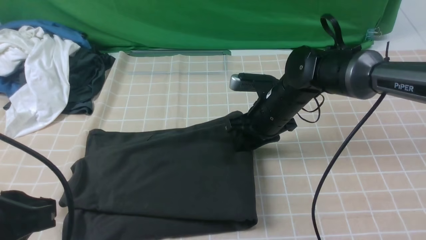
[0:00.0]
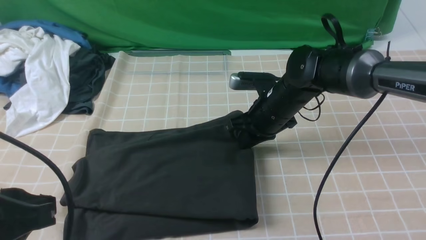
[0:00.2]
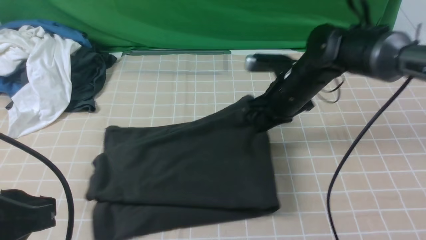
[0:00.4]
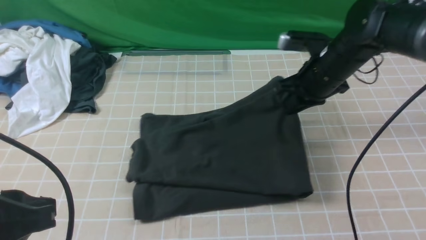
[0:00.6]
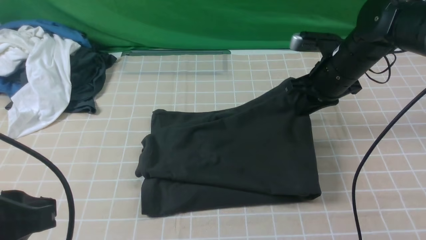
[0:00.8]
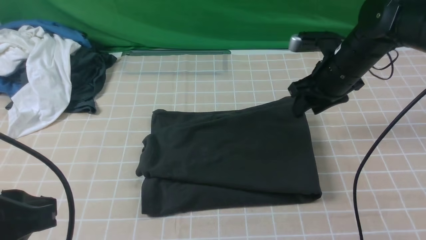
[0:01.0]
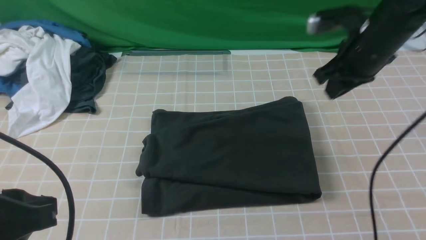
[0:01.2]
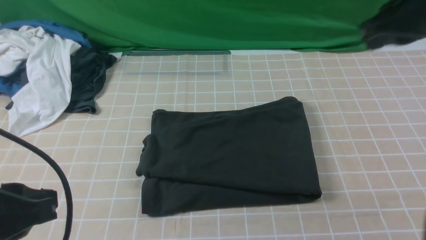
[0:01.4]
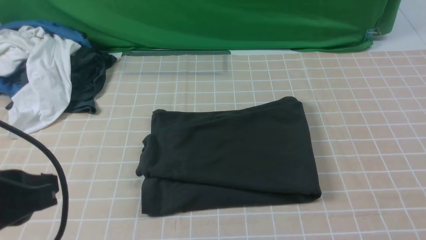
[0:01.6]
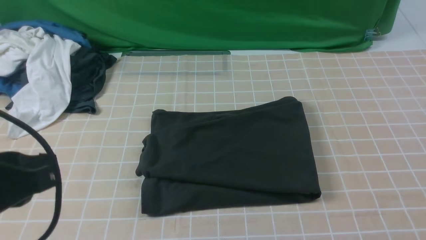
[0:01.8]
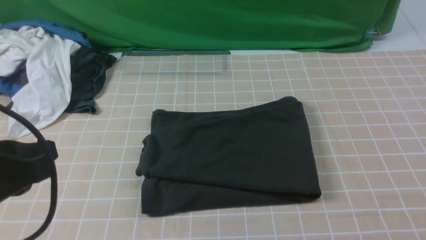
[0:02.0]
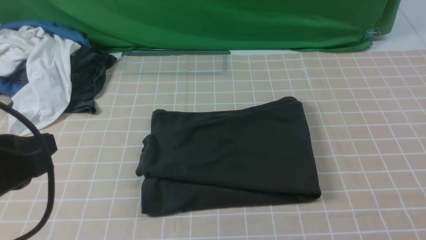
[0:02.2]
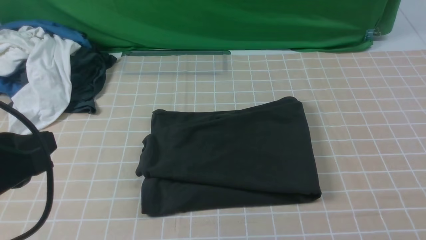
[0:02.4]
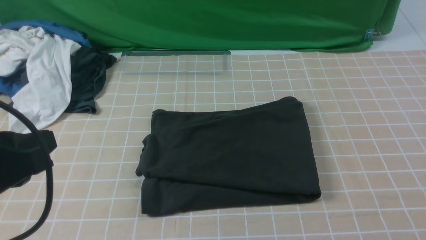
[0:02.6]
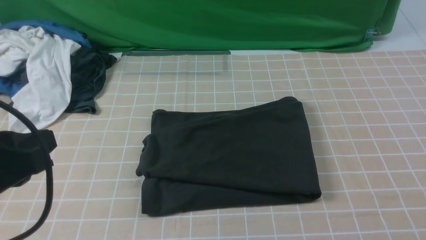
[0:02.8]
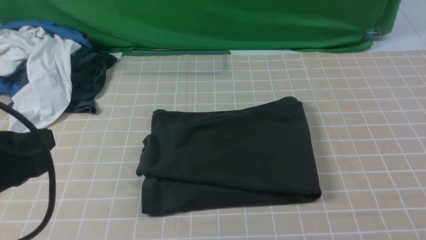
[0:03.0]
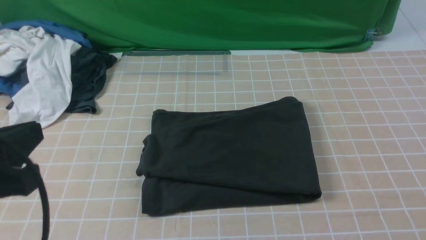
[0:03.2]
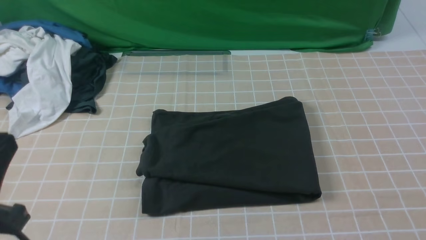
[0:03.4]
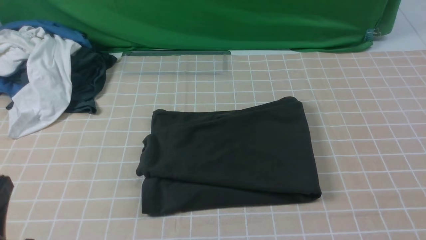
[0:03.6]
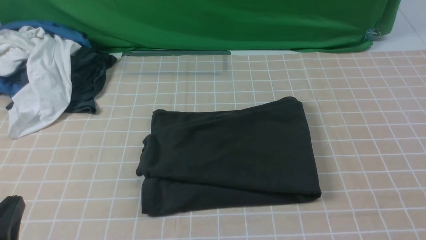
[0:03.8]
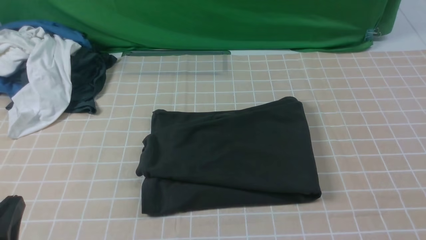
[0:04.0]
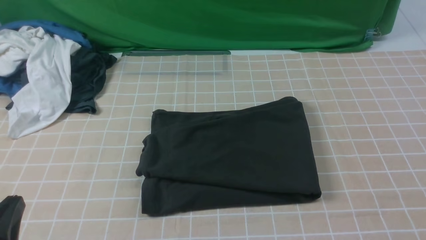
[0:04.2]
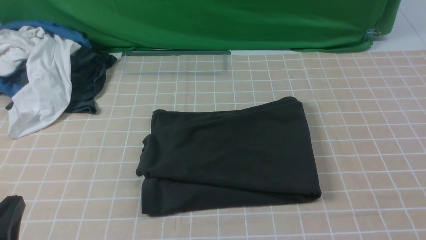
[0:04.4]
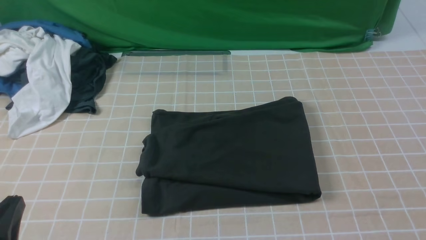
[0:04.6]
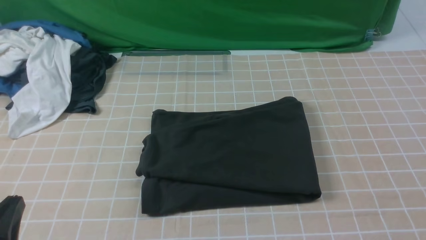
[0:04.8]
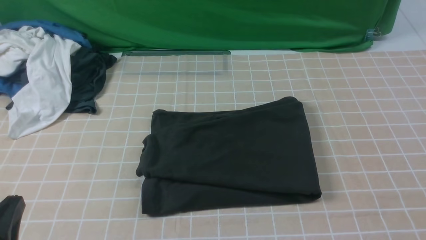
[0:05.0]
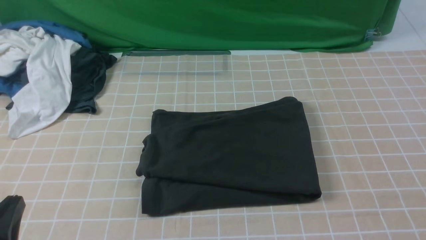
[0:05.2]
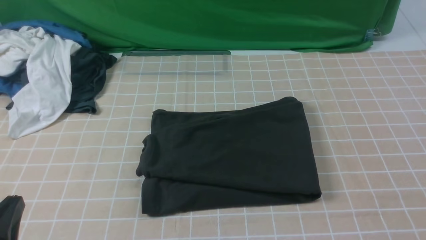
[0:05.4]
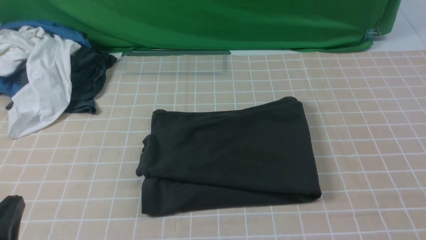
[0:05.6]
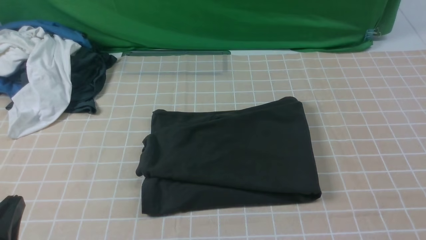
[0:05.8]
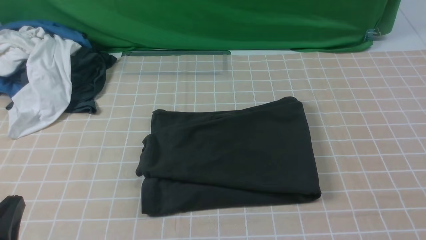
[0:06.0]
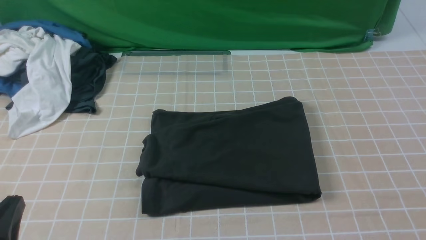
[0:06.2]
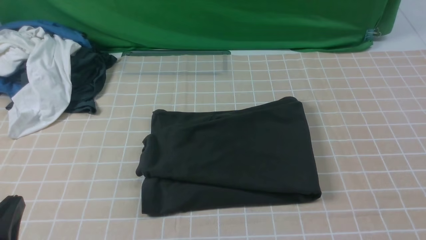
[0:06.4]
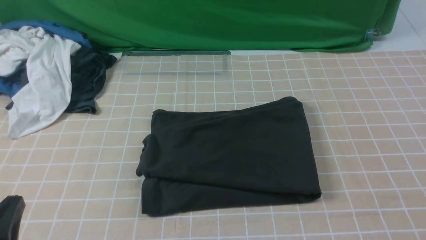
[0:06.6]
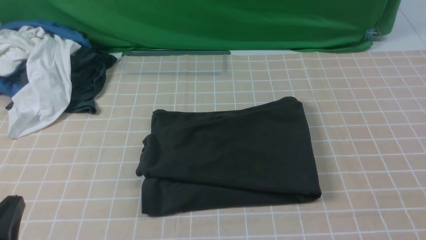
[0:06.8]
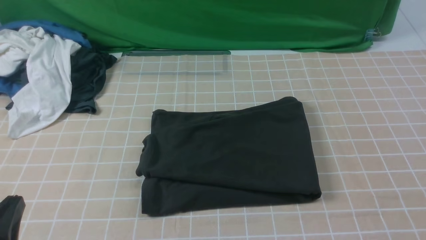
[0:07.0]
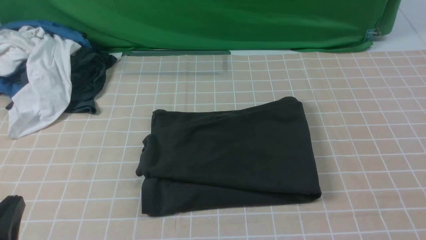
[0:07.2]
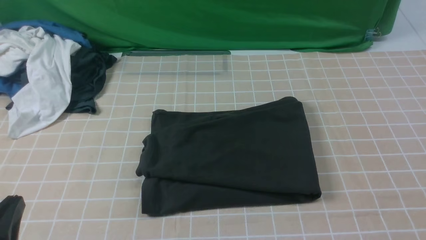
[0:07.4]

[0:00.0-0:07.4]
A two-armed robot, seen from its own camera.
0:00.0 to 0:01.4: The right gripper travels upward, to the right and backward by roughly 30 cm, and closes its fingers.
0:01.4 to 0:03.0: The right gripper moves backward, approximately 25 cm, and opens.
0:03.0 to 0:04.4: The left gripper travels downward and backward by roughly 15 cm.
0:06.0 to 0:07.4: The two grippers keep their place.

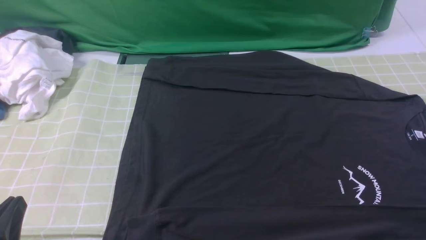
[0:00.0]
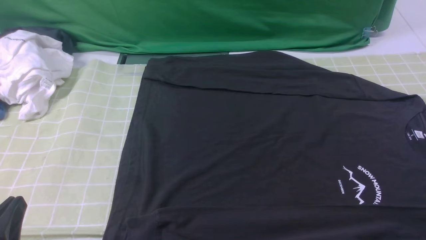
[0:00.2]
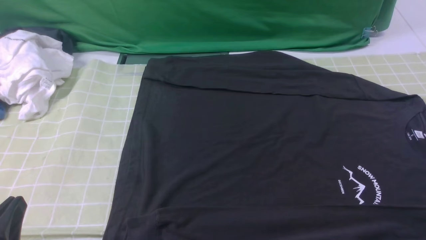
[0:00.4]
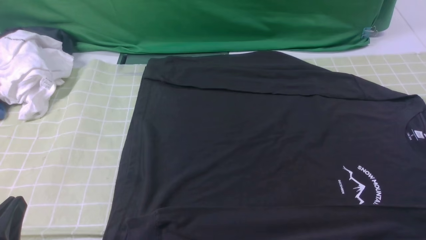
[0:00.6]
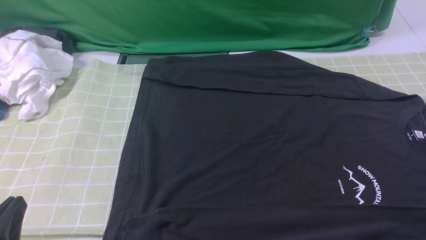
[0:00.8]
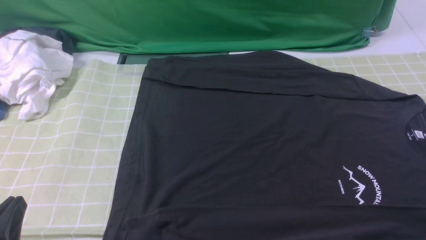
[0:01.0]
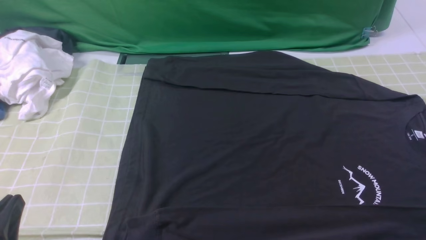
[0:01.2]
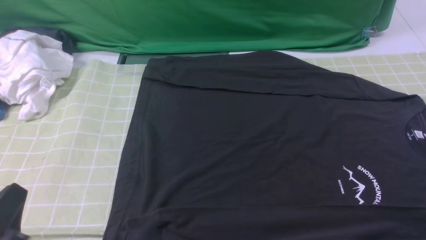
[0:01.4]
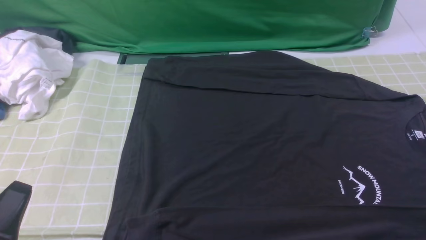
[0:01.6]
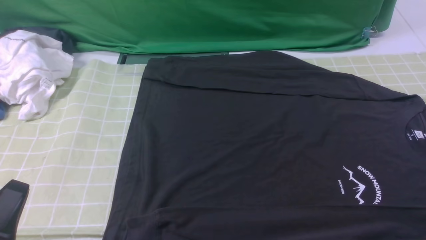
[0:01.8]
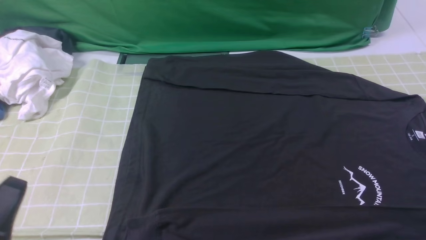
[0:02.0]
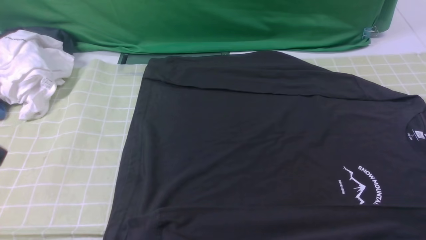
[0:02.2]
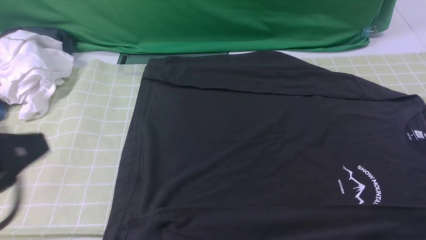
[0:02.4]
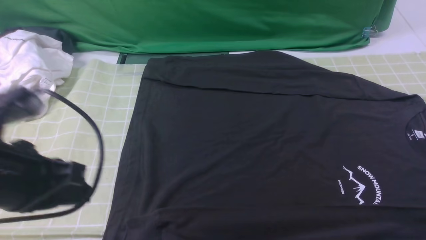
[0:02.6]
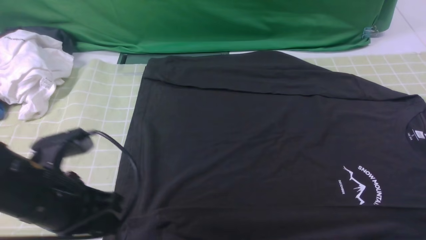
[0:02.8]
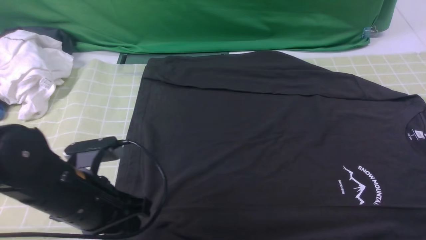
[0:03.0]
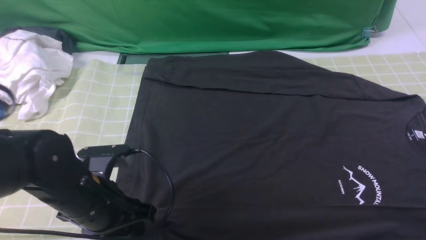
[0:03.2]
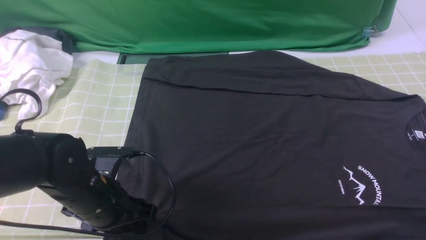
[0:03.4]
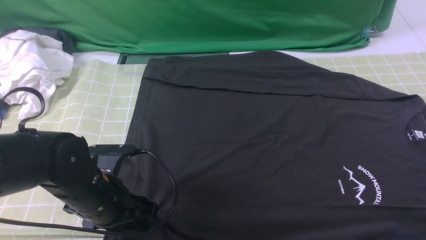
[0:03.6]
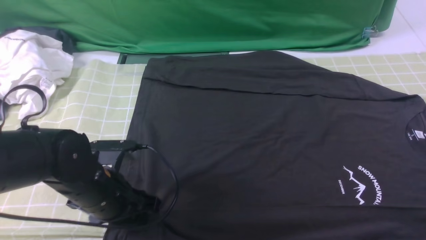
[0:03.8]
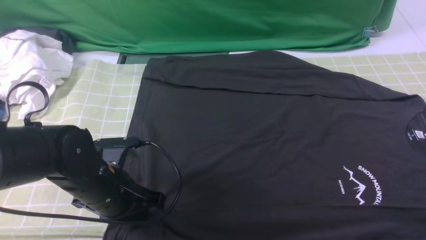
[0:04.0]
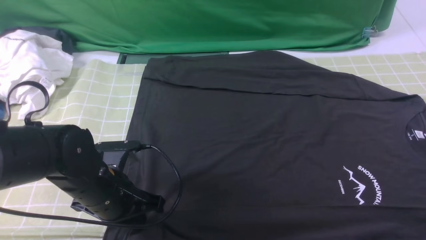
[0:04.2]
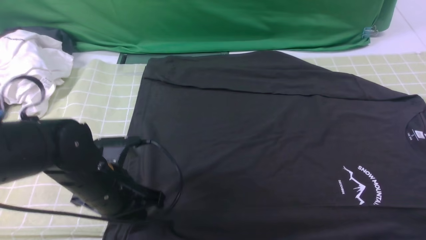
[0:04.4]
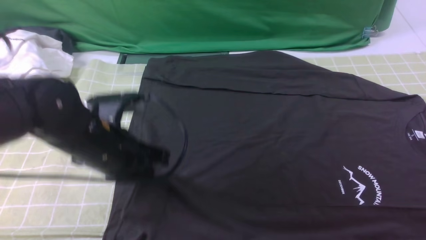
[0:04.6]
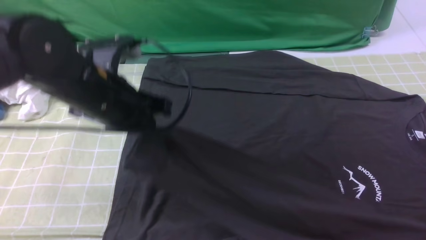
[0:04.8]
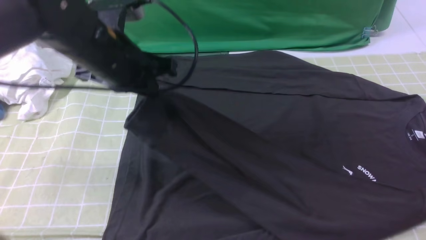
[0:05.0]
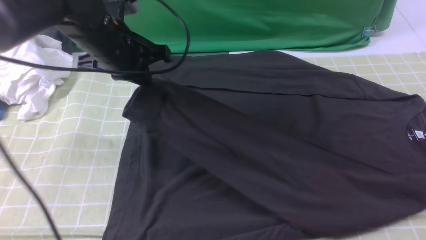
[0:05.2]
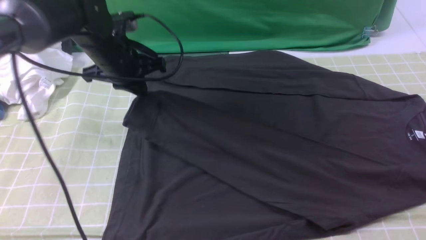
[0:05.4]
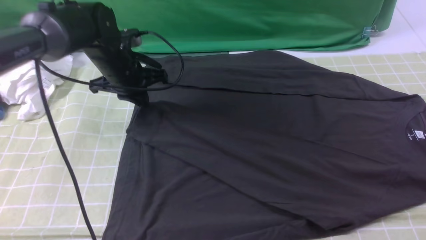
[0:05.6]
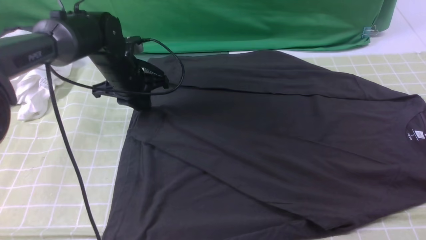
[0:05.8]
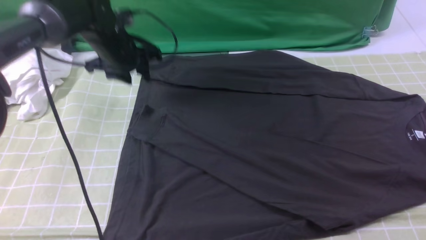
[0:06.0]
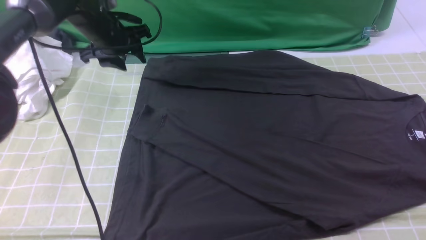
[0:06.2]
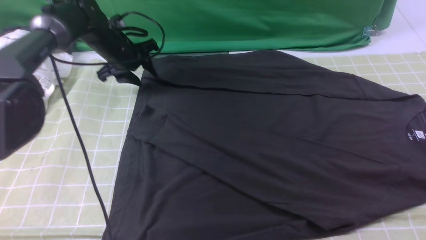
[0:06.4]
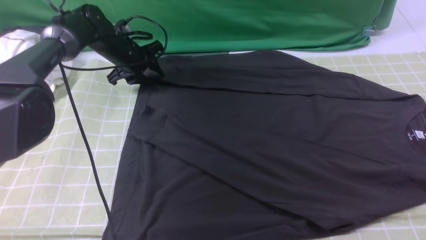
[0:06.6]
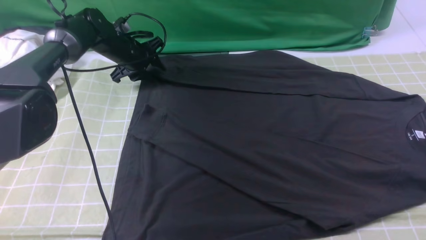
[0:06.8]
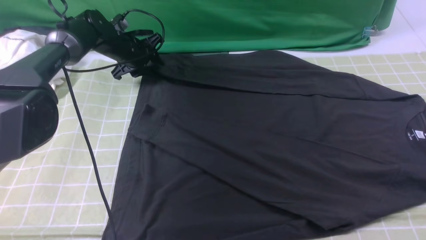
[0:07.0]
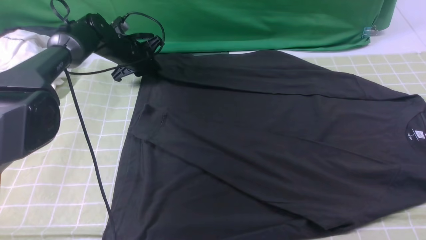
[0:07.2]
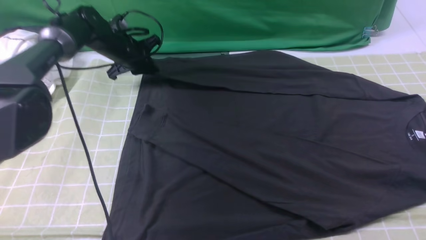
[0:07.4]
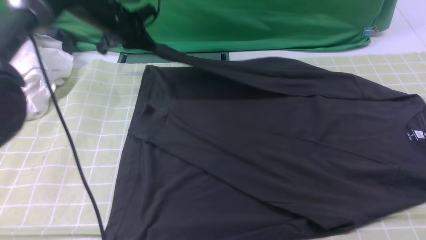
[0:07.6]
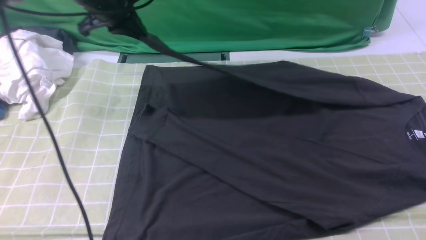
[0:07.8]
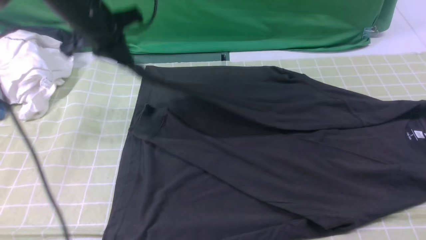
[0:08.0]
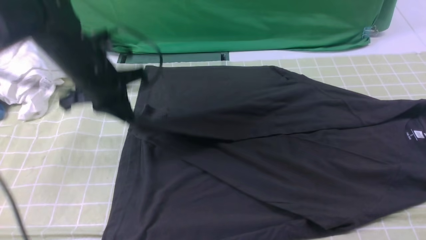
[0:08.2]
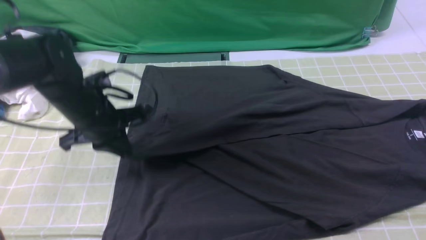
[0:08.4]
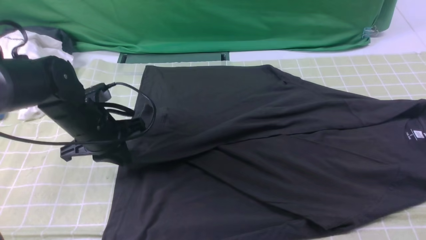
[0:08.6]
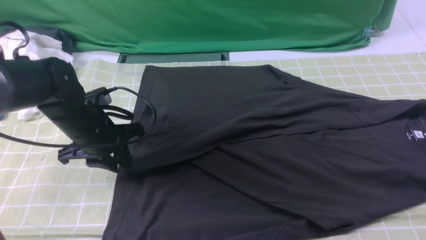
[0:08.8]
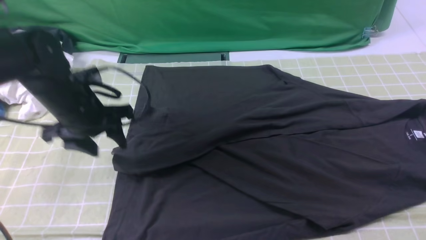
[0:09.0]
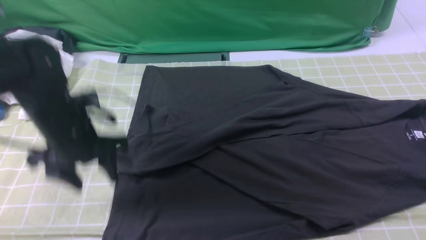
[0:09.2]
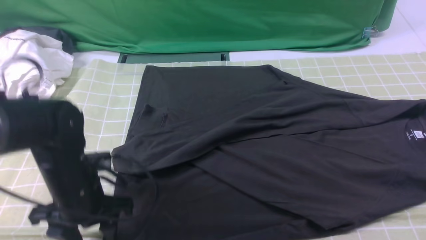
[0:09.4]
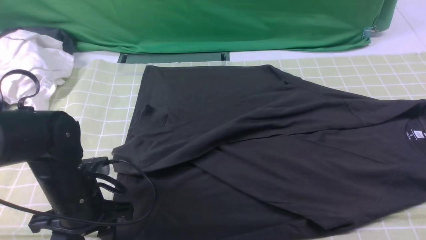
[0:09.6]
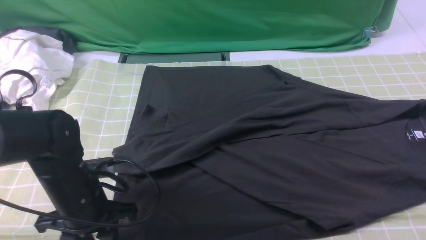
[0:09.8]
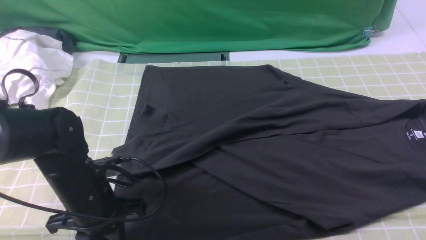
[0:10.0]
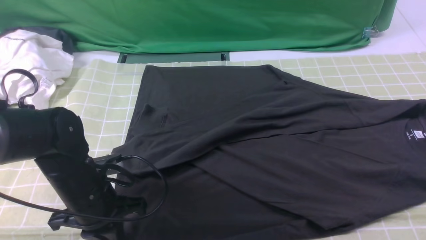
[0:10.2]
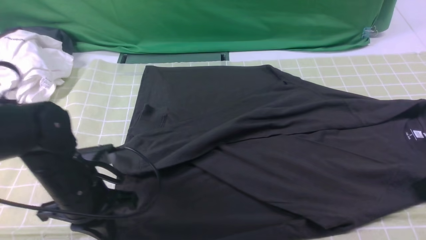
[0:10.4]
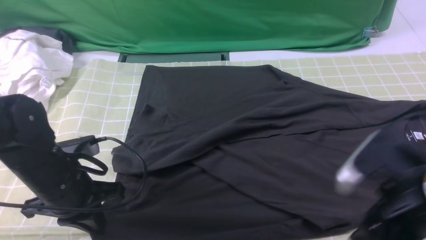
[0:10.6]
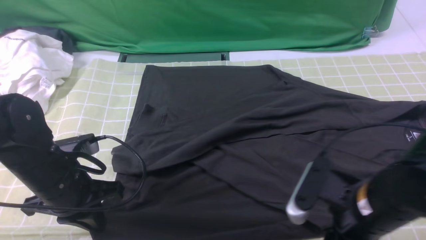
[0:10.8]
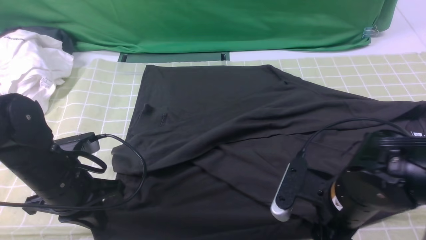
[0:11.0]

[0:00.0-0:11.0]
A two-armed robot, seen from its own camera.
Step, 0:00.0 to 0:04.2: use the left arm to clamp the cuff closest to it.
Step, 0:04.4 to 0:05.8: use the left arm to drag and place the cuff at the centered position on the left edge of the fabric.
Step, 0:06.0 to 0:07.0: use the left arm to clamp the cuff farthest from it.
Step, 0:07.4 to 0:08.8: use the left arm to drag and drop the cuff onto the cuff closest to the left arm.
0:01.6 to 0:03.2: The left gripper goes approximately 15 cm forward and to the right, and opens its fingers.
0:03.2 to 0:04.8: The left gripper is displaced upward and forward by approximately 15 cm, and closes up.
0:04.8 to 0:06.2: The left gripper heads forward, covering some 20 cm, and opens.
0:06.2 to 0:07.8: The left gripper shifts roughly 10 cm upward, and closes its fingers.
0:07.8 to 0:09.4: The left gripper travels backward and downward by about 25 cm, and opens its fingers.
0:09.4 to 0:11.0: The left gripper closes its fingers. Meanwhile the right gripper heads downward and to the left, covering about 20 cm, and opens.
